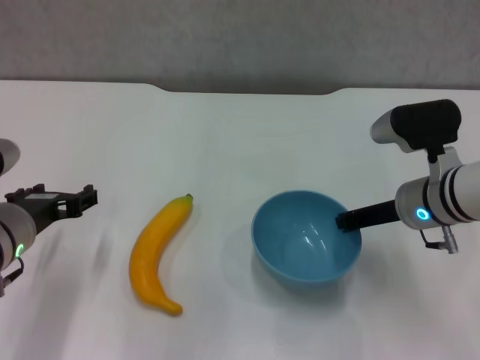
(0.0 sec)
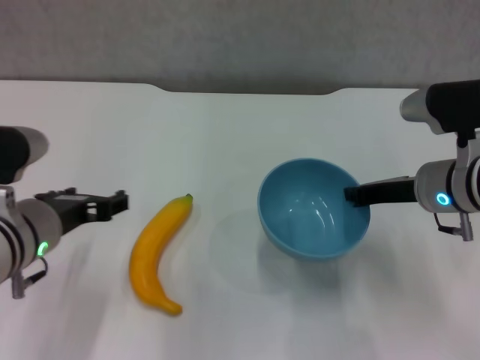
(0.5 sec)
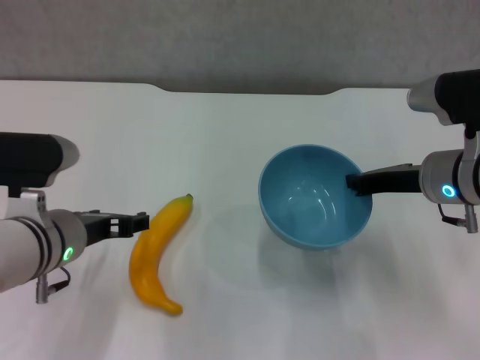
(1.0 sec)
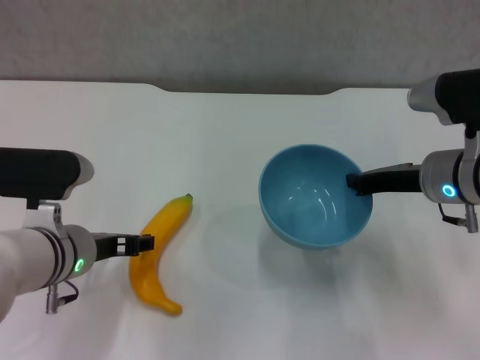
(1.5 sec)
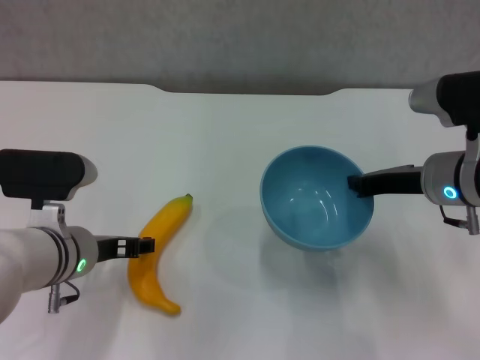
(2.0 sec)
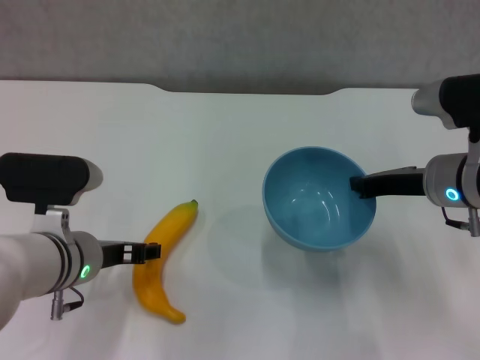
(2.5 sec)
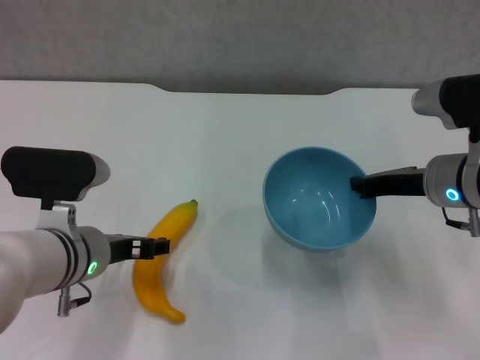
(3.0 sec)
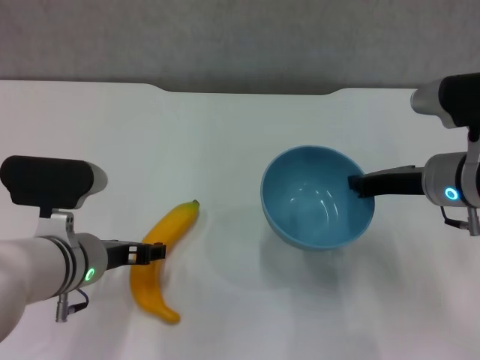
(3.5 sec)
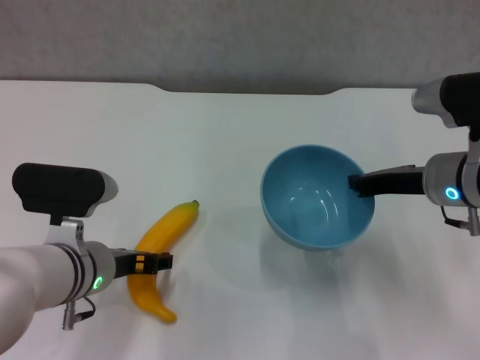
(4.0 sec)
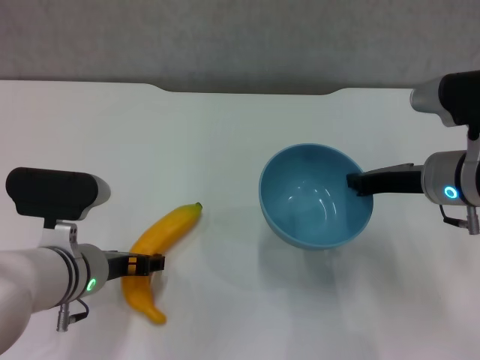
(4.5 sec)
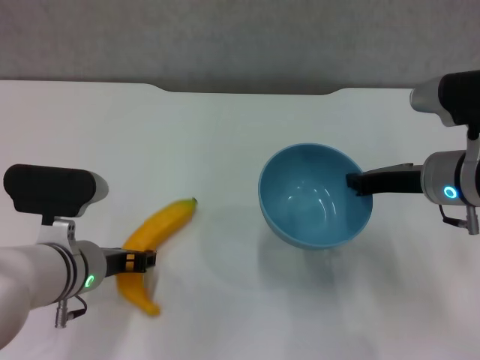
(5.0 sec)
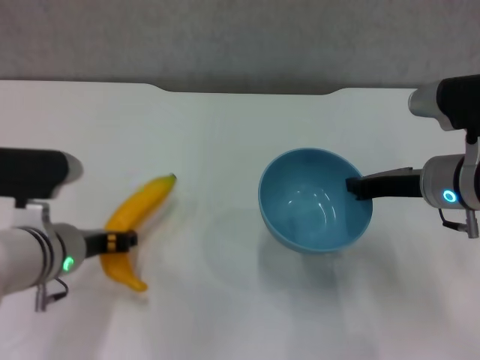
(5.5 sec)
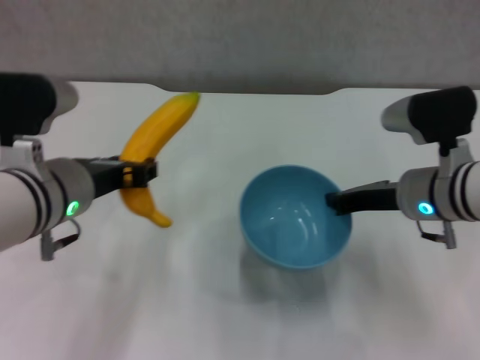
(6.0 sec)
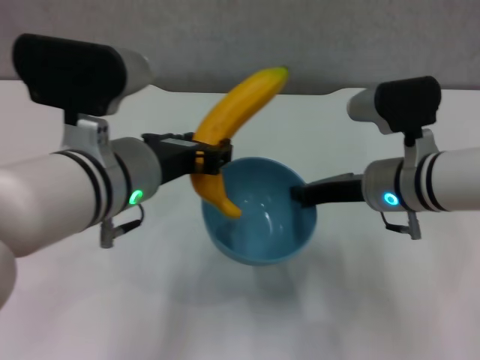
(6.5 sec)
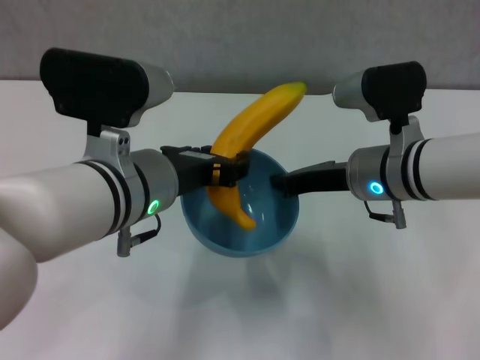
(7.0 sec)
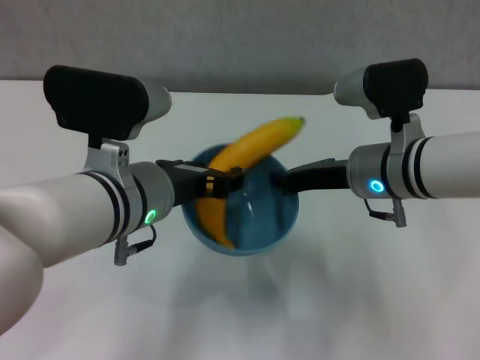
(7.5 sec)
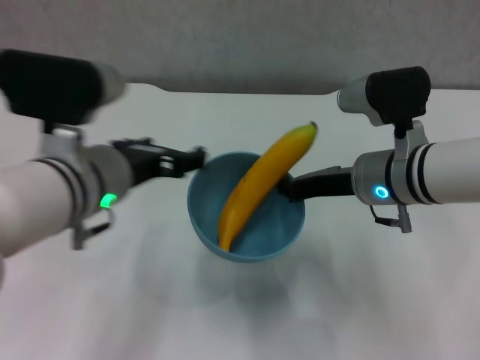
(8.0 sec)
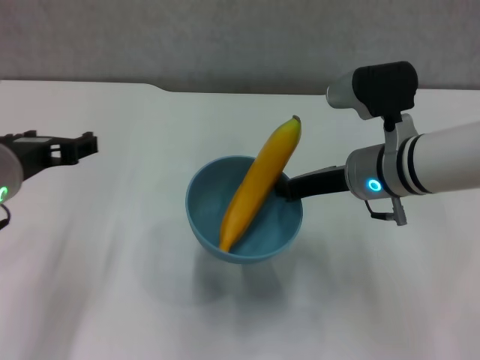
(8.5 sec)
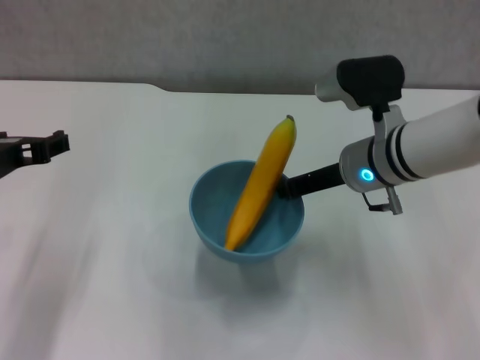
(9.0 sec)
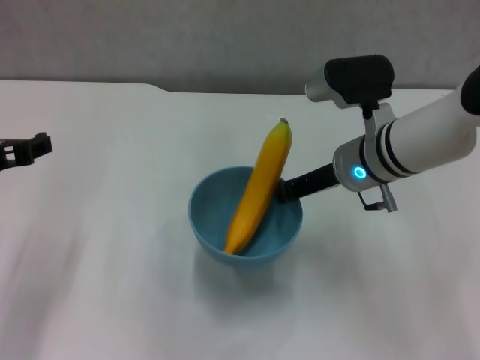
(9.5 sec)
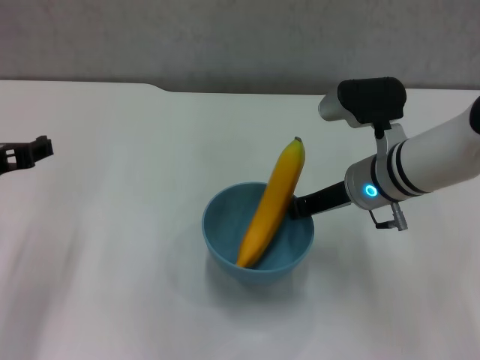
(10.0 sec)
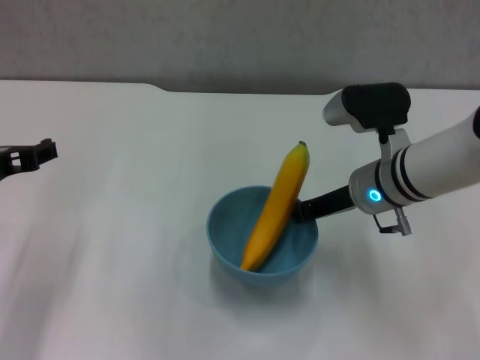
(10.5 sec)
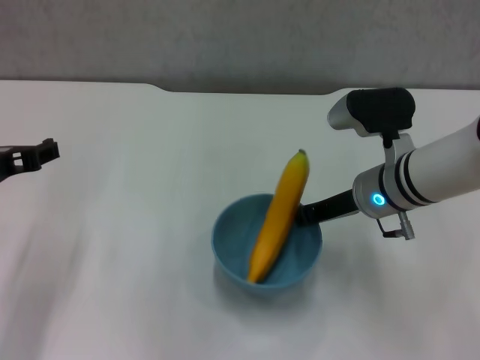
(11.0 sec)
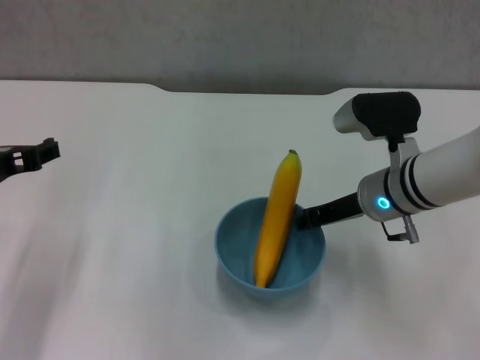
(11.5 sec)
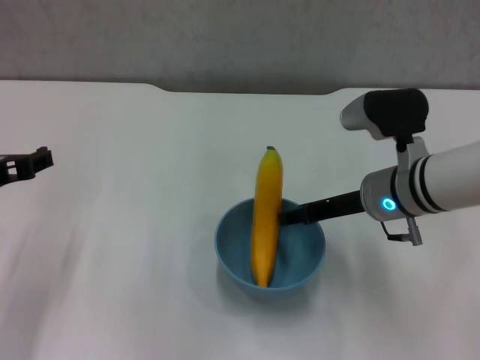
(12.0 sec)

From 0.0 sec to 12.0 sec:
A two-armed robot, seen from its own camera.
Step, from 0.0 sec to 0.5 sec: Lift the blue bowl with right gripper.
Step, from 1.0 sec to 5.0 sec: Grasp the banana with left gripper.
Step, from 5.5 sec to 7.5 sec: Place the banana in the blue bowl with left gripper.
From 0.0 sec to 2.0 sec: The left gripper changes place by about 5 cm.
From 2.0 sec to 4.0 sec: There are only small adjustments of the grippers.
From 4.0 sec to 6.0 sec: The left gripper shifts approximately 10 cm upward, and closes its fingers.
From 6.0 sec to 8.0 sec: The left gripper opens.
From 8.0 sec to 10.0 sec: The left gripper goes some 10 cm to the left.
From 10.0 sec to 12.0 sec: The right gripper opens up.

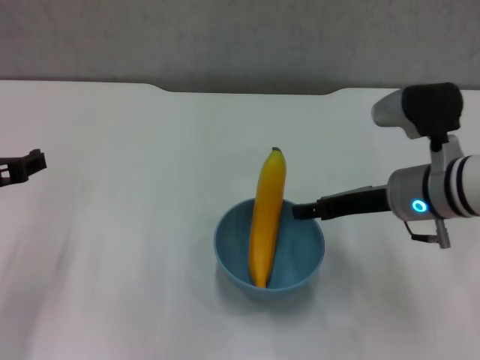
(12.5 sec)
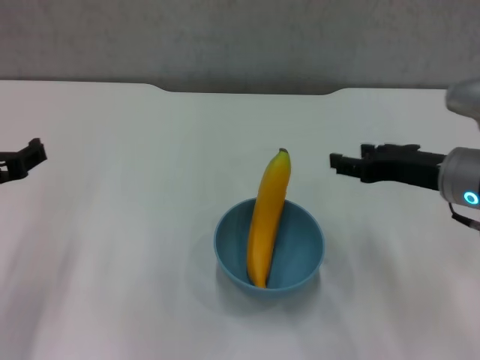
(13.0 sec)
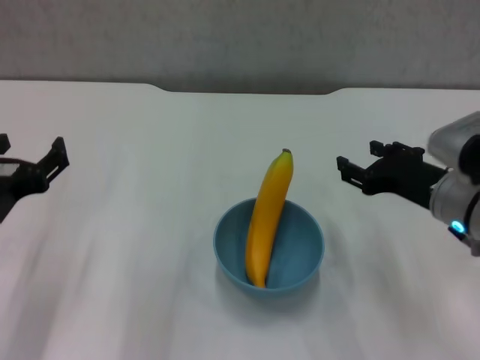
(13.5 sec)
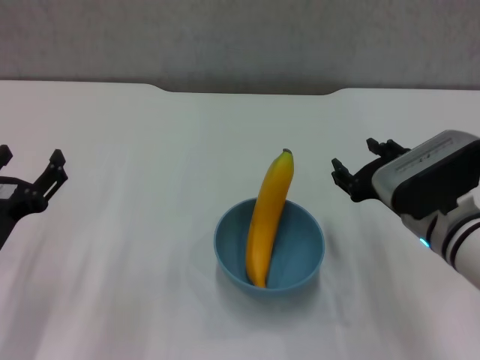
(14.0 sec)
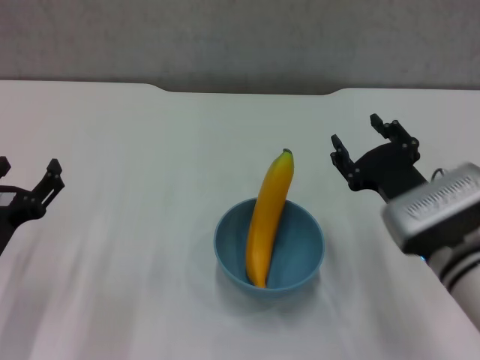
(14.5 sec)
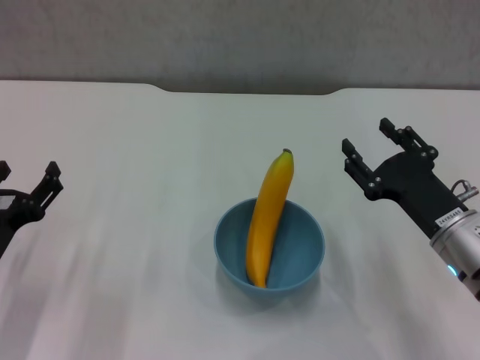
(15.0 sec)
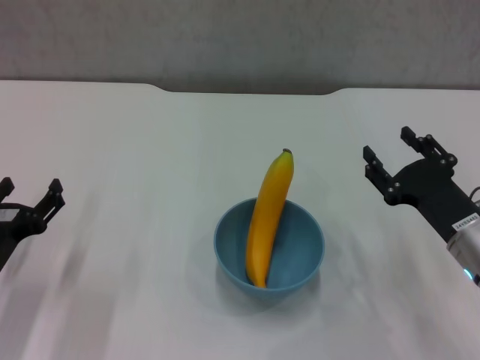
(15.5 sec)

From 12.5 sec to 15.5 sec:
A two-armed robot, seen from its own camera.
From 12.5 sec to 14.0 sec: The right gripper changes place by approximately 5 cm; the left gripper travels downward by approximately 10 cm.
From 14.0 sec to 15.5 sec: The right gripper shifts about 5 cm to the right.
